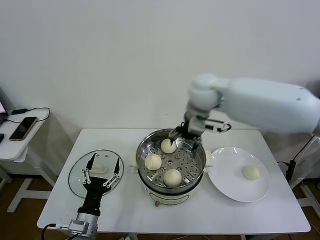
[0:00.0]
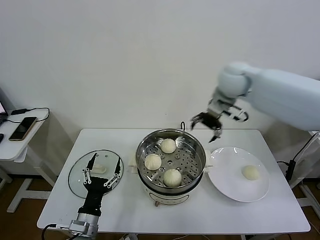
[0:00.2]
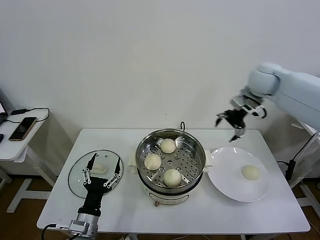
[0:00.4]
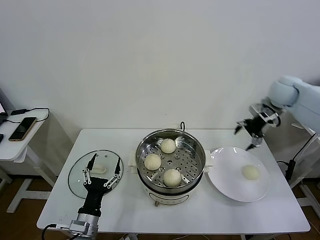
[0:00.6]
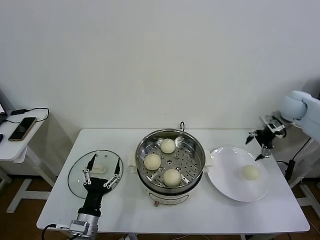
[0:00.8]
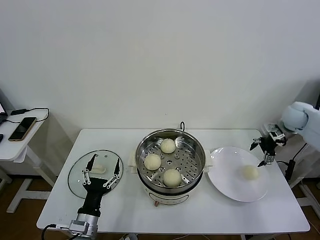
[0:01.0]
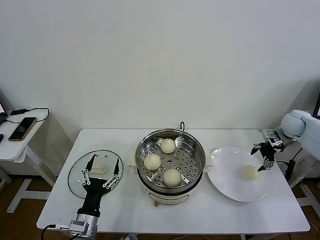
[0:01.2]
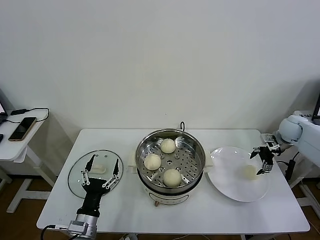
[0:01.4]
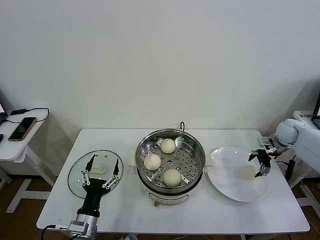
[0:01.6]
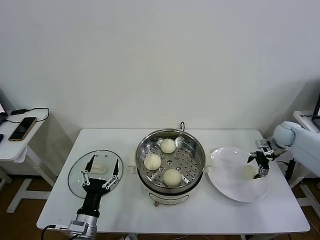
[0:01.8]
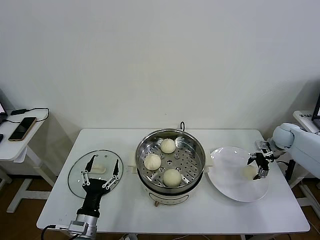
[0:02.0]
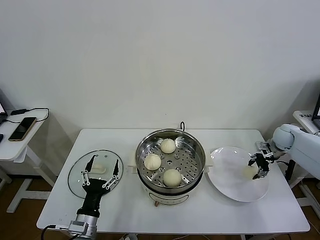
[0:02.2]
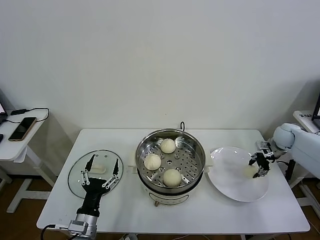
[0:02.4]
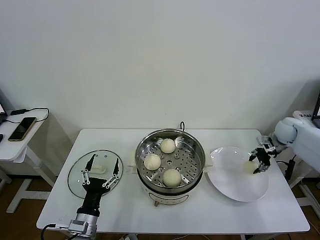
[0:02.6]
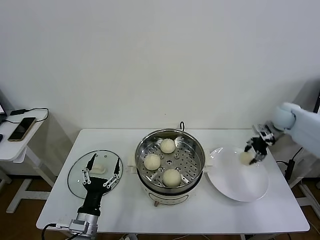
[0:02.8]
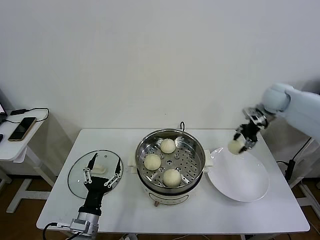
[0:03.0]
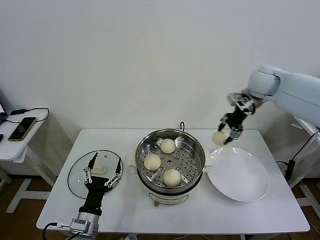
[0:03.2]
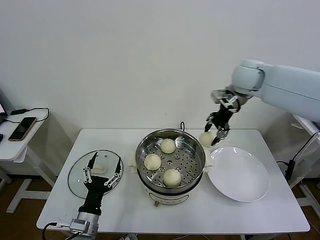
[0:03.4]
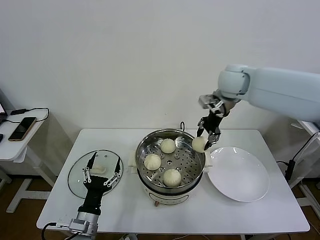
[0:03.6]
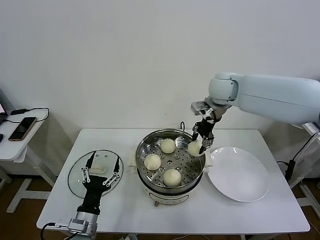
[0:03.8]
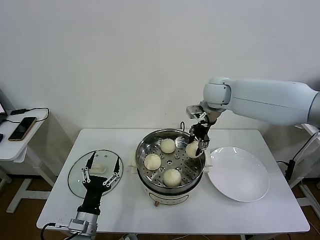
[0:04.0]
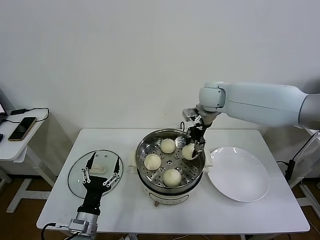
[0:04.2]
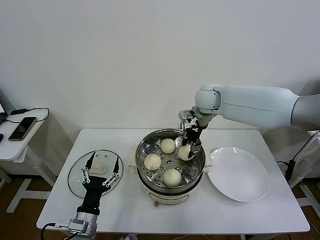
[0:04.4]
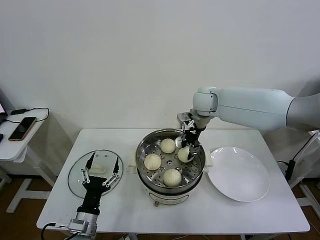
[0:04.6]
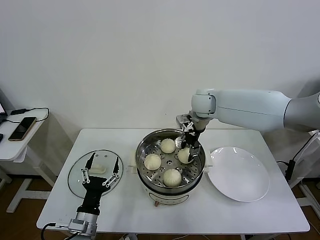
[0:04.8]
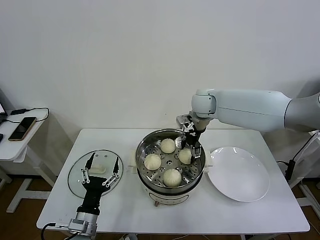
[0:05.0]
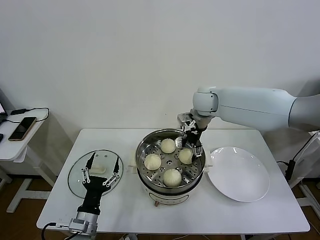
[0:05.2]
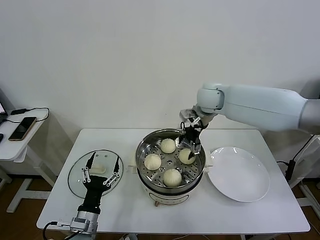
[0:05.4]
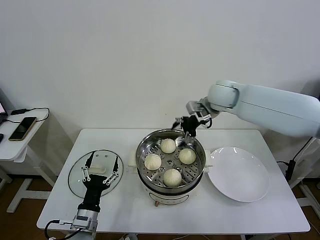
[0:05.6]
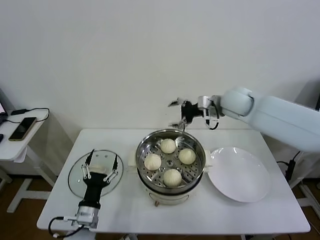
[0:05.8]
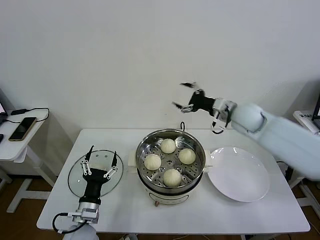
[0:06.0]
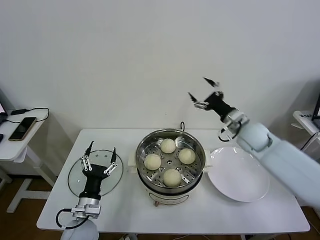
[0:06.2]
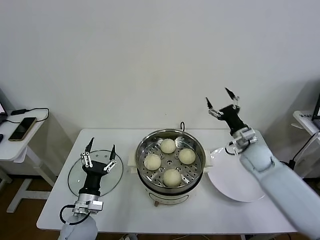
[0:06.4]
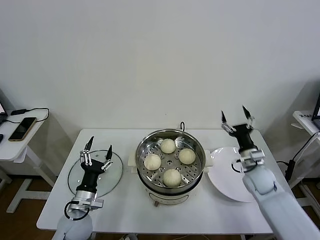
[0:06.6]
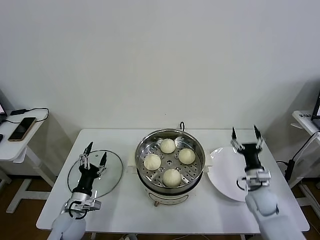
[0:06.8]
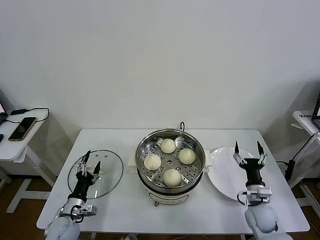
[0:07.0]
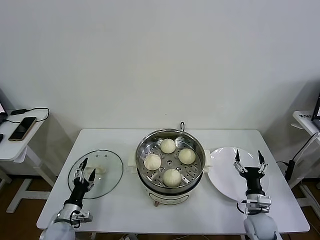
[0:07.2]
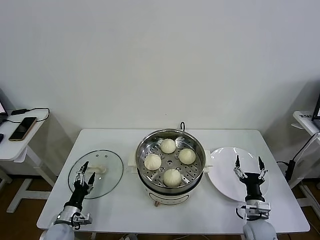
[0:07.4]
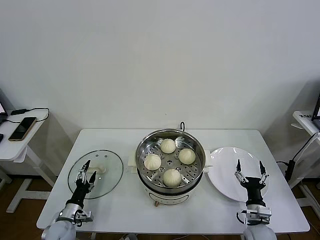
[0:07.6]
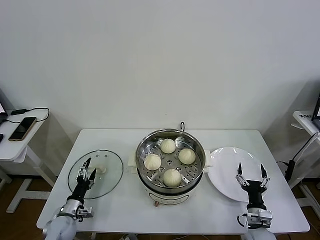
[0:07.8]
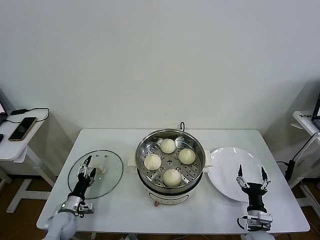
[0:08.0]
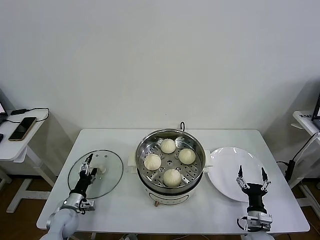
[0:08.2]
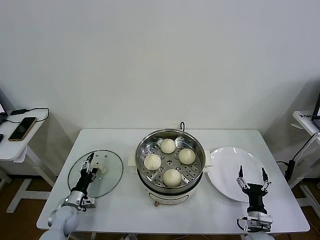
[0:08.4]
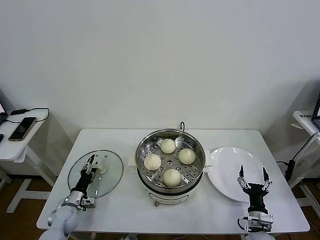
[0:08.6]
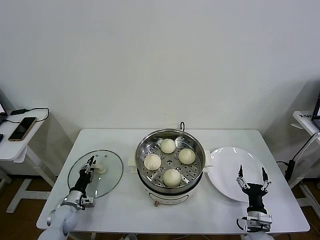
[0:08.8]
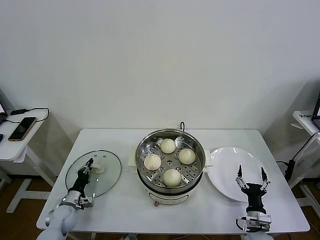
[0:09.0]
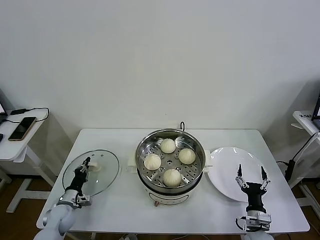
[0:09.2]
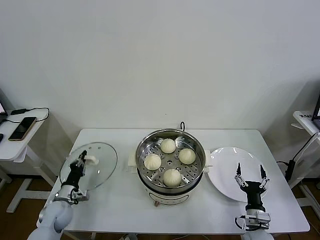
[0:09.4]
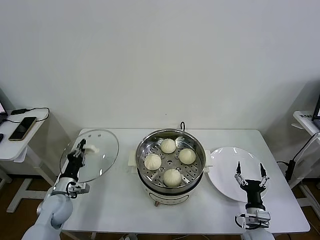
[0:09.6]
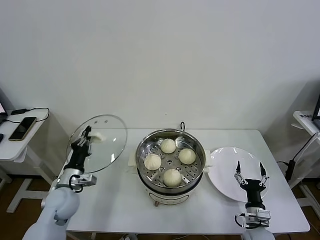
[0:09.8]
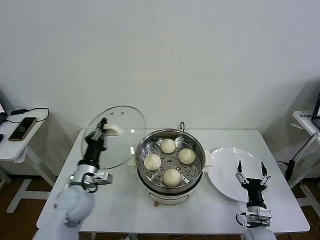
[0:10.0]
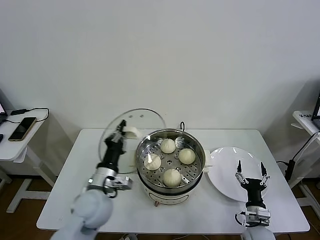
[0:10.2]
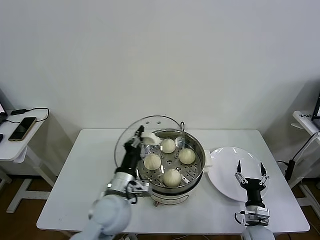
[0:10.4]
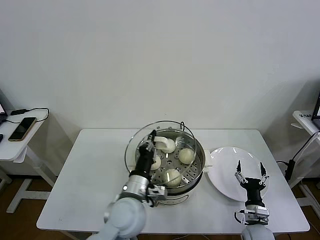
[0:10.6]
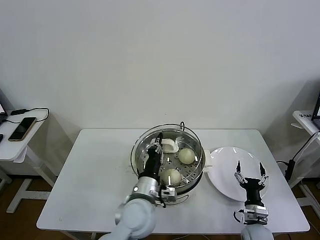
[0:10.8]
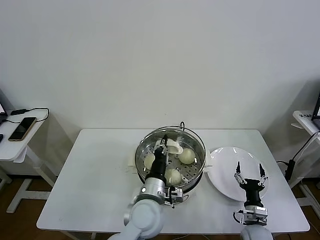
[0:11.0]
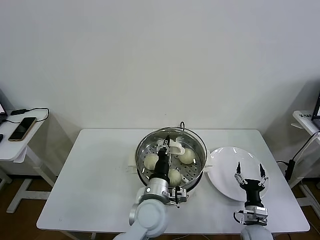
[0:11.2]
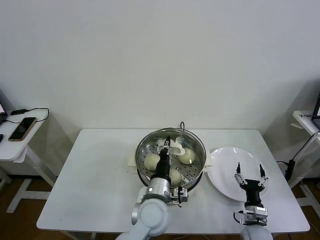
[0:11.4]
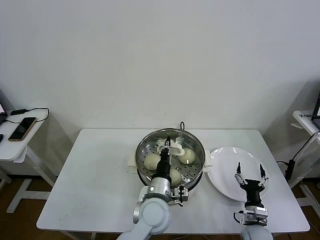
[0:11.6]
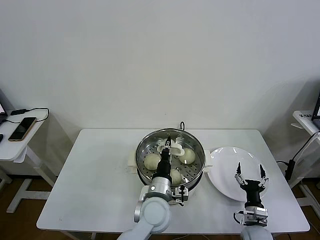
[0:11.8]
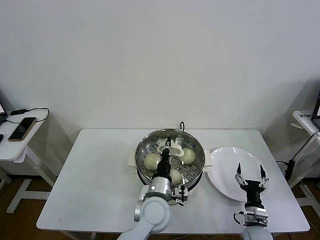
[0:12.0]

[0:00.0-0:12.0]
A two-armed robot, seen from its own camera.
Task of the whole recording: take steamed baozi put them in steamer then cover it.
Step, 0.0 to 2.2 s: Grasp the baozi in the plate with right gripper.
Step, 2.6 to 5.0 s: Place the baozi on the steamer with right gripper.
Step, 5.4 to 9.0 s: Grasp the pot lid with left gripper.
0.0 to 1.6 s: The right gripper goes roughly 40 cm to the right and downward.
1.6 to 3.0 s: The right gripper goes some 15 cm upward and to the left, and closes its fingers.
3.0 to 4.4 s: The right gripper travels to the left by roughly 25 cm.
4.4 to 6.0 s: The right gripper travels to the right and backward by approximately 15 cm, and opens.
6.0 to 7.6 s: The left gripper shifts roughly 15 cm to the left and downward, while the right gripper moves downward and backward, roughly 40 cm.
7.6 to 9.0 s: The left gripper shifts roughly 5 cm forward, and closes its fingers.
9.0 to 10.4 s: The left gripper shifts approximately 30 cm to the right and upward.
10.4 to 12.0 s: The left gripper shifts approximately 15 cm to the right and downward.

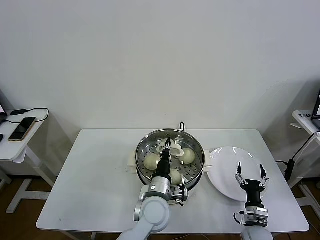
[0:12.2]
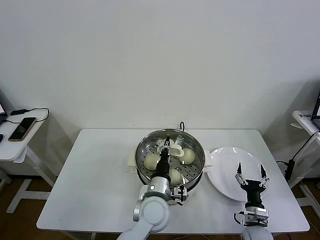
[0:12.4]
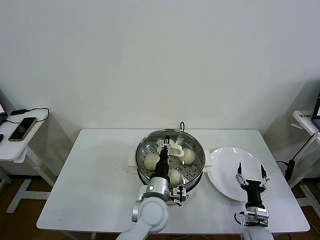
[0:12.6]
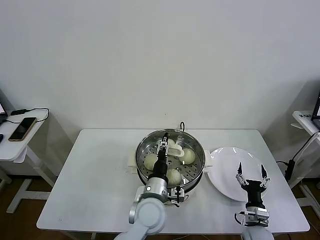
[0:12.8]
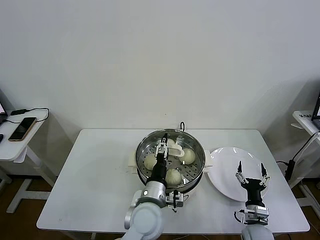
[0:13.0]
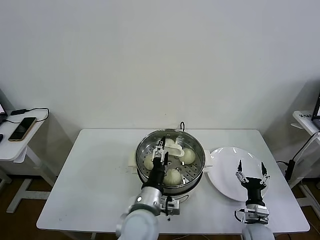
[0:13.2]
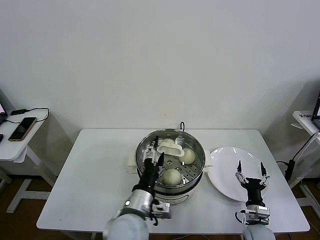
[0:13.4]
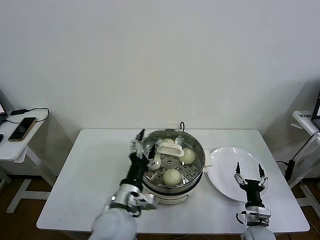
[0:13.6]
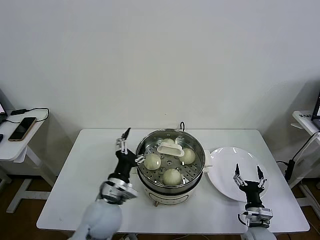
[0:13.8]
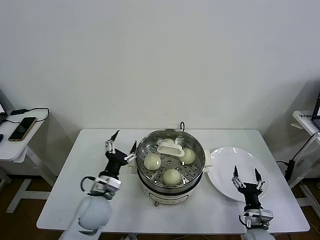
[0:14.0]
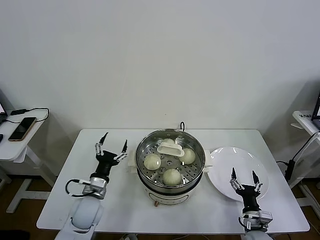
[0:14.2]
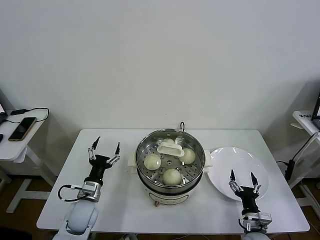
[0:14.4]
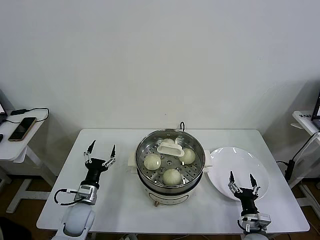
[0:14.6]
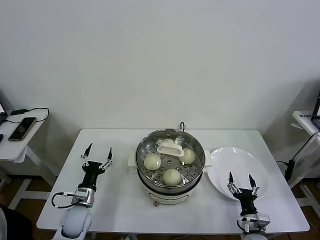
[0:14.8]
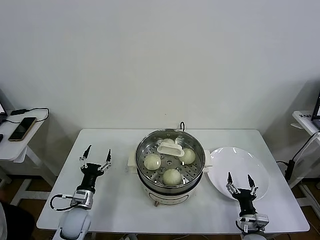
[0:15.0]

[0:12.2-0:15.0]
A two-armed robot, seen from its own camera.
Task of the whole recording: take steamed baozi put them in steamer then cover it.
12.2 to 13.6 s: The left gripper is displaced to the left, upward and backward by approximately 10 cm, and opens its fingers.
13.6 to 15.0 s: The left gripper heads to the left and downward, covering about 25 cm.

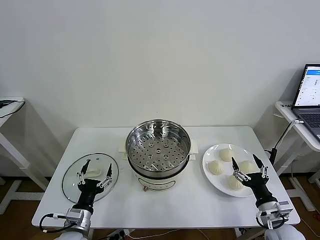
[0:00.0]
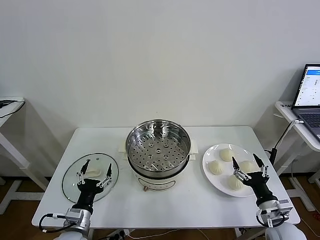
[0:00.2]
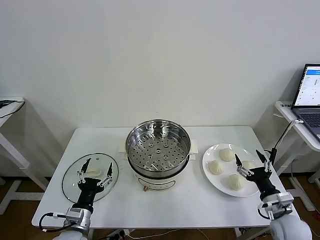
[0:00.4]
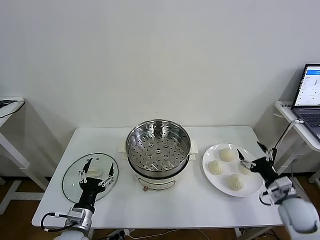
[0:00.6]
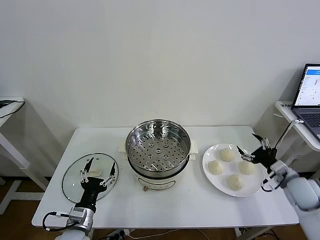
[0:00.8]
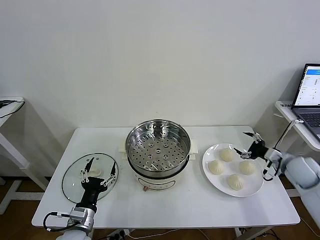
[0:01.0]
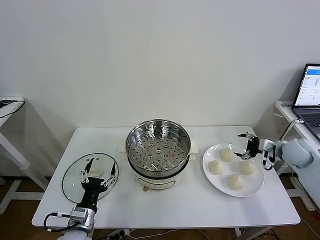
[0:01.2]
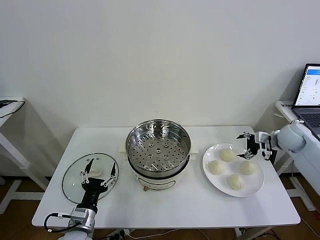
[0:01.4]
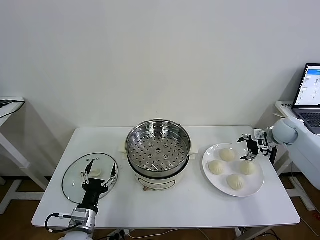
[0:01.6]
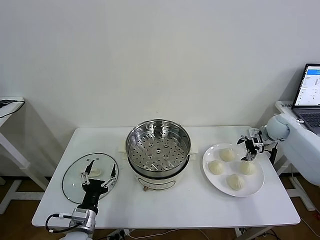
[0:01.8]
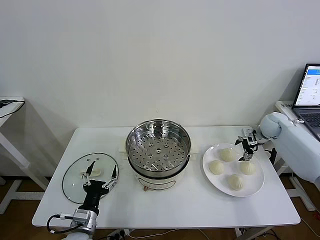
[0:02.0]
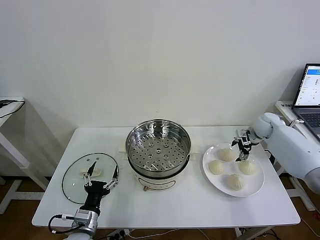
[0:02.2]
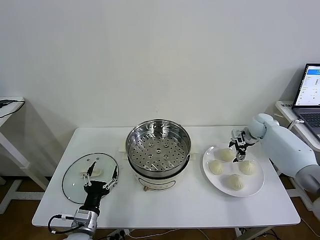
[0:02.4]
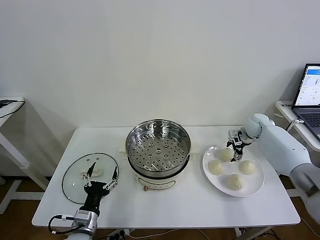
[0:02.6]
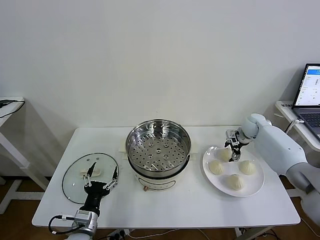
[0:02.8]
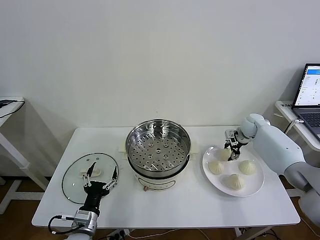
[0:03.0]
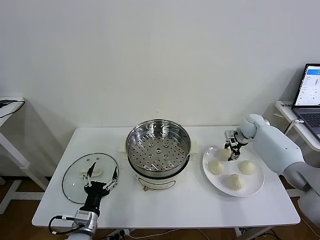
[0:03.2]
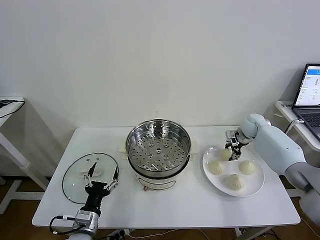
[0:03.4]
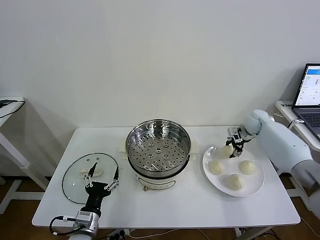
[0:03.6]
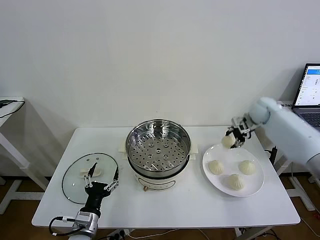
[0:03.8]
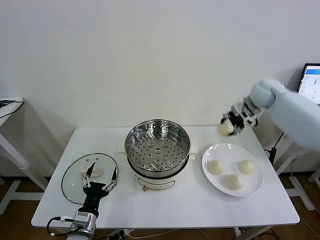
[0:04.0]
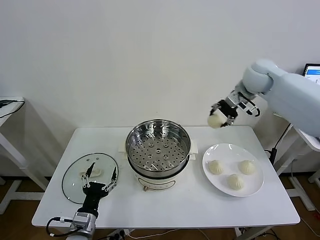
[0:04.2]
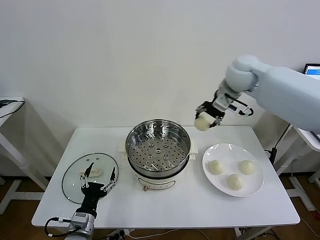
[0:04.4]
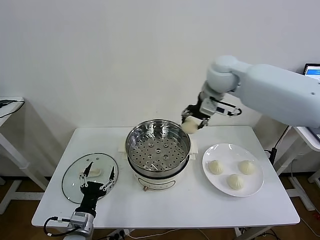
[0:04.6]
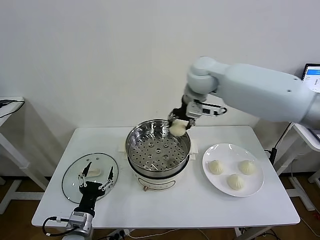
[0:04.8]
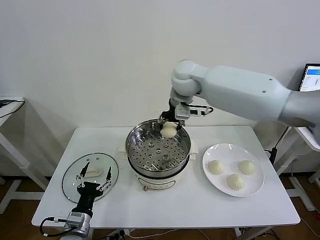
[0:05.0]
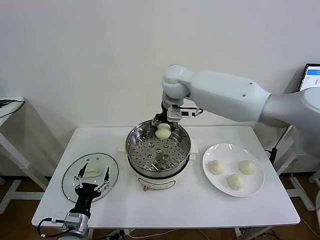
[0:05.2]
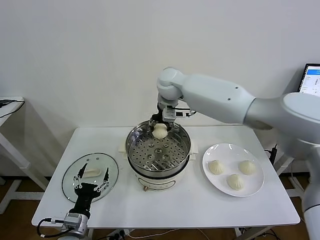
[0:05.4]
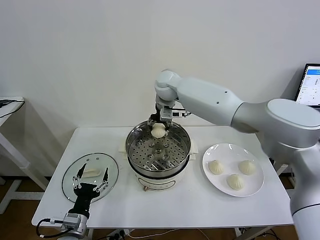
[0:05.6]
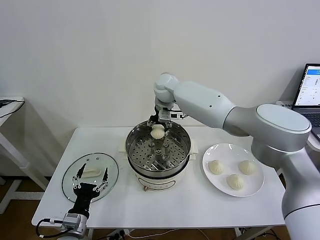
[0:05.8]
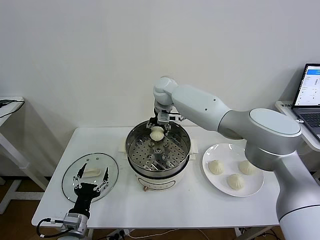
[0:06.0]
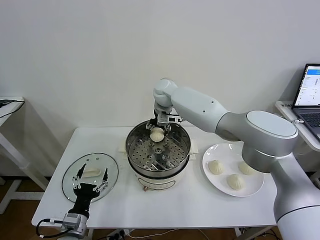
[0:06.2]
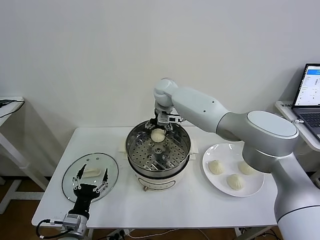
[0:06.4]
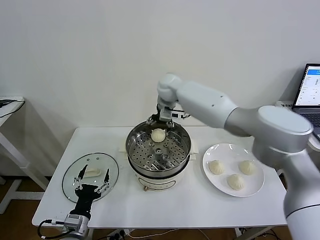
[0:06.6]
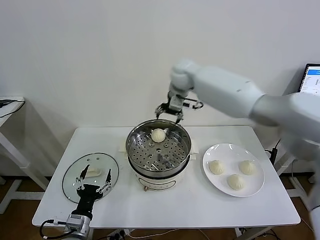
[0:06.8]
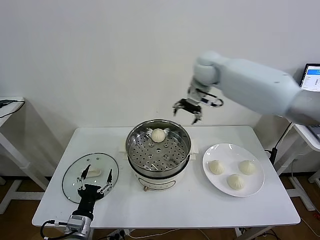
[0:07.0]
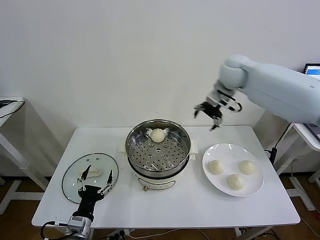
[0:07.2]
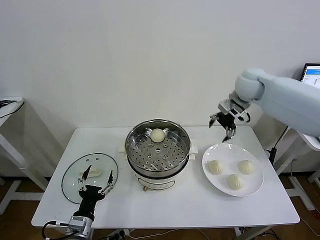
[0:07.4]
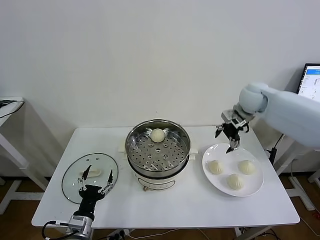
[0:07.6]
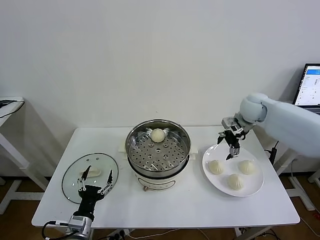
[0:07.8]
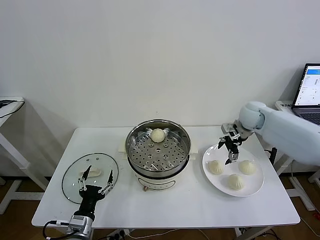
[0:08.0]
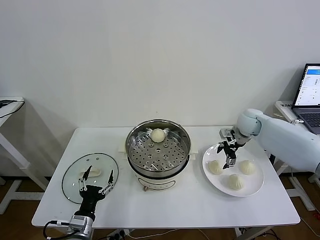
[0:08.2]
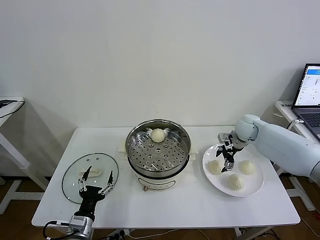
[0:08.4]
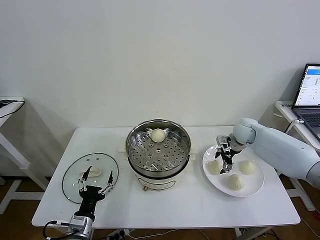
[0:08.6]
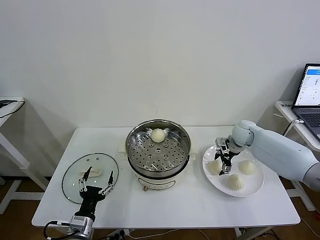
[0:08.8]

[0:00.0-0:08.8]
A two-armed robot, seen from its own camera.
Task of the whole recording: take steamed baozi put them in steamer then cover it.
Step, 0.0 to 3.0 s: Grasp the baozi in the plate with right gripper.
Step, 3.2 to 6.4 s: Place the baozi on the steamer with right gripper.
1.4 to 3.0 s: The right gripper shifts roughly 15 cm forward, to the left and downward, and closes.
3.0 to 4.4 s: The right gripper is displaced upward and to the left by some 30 cm.
4.4 to 5.8 s: The right gripper moves to the left, downward and forward, approximately 20 cm.
5.8 to 7.4 s: The right gripper travels to the right by roughly 30 cm, and opens up.
7.4 to 8.8 s: The right gripper travels downward by roughly 20 cm.
